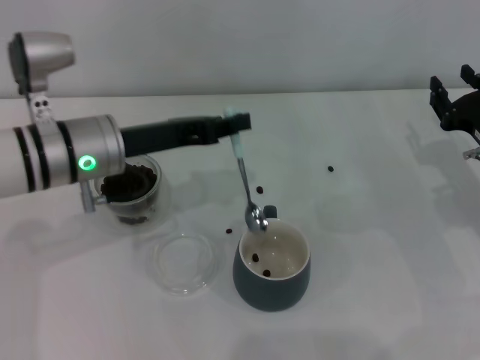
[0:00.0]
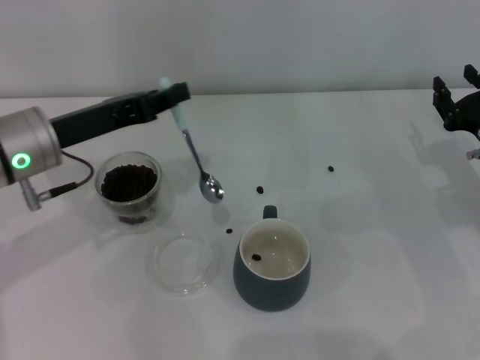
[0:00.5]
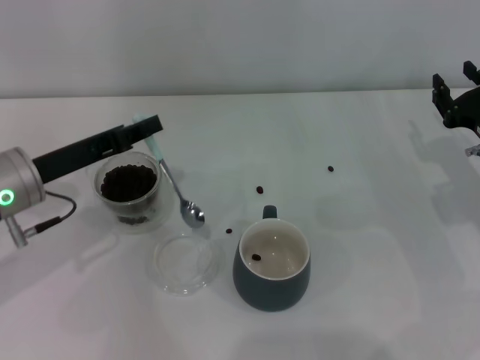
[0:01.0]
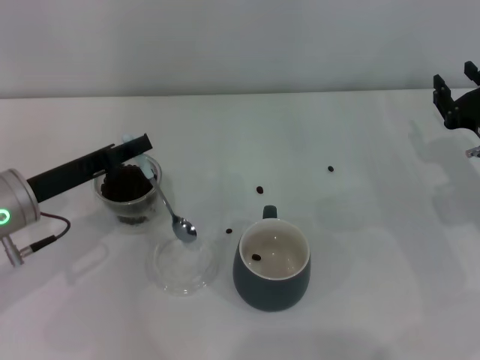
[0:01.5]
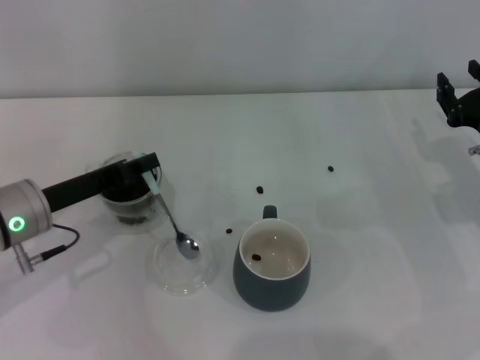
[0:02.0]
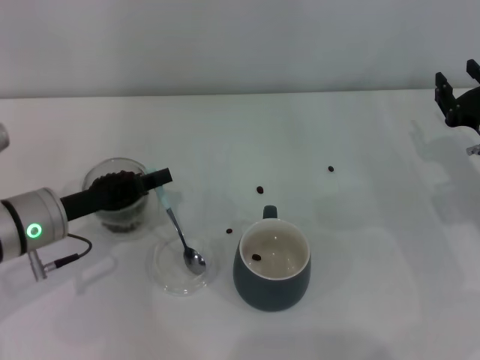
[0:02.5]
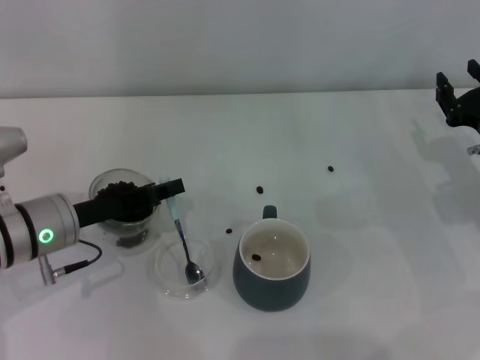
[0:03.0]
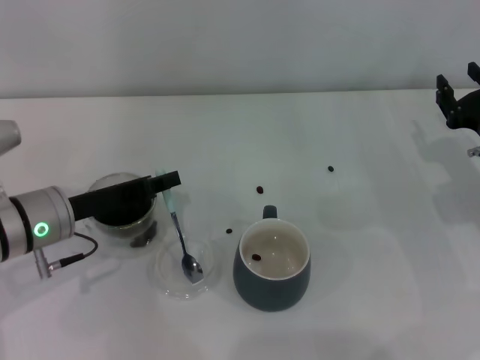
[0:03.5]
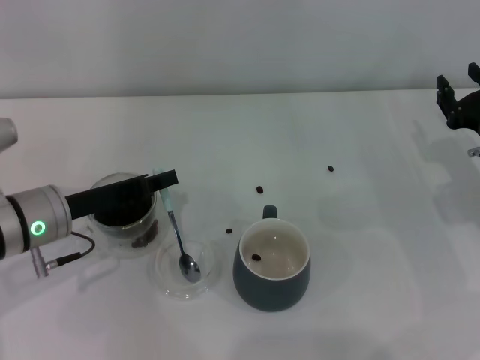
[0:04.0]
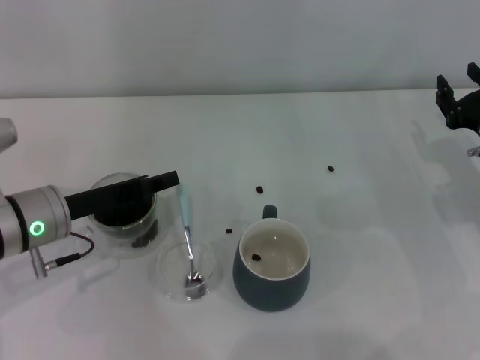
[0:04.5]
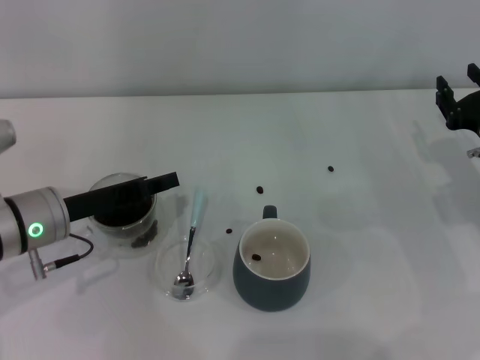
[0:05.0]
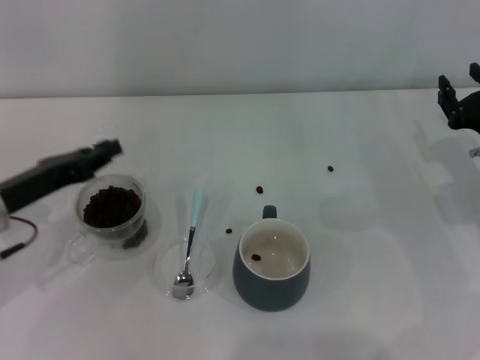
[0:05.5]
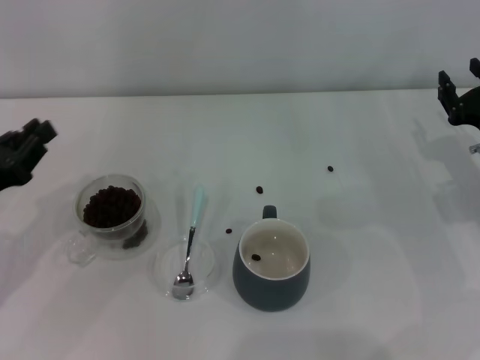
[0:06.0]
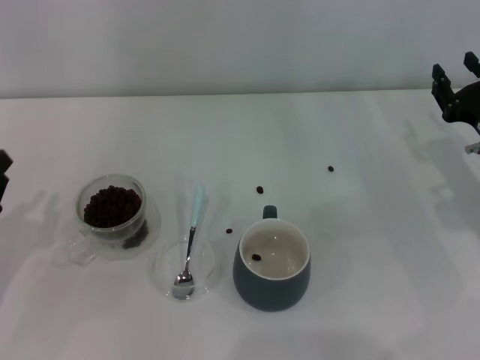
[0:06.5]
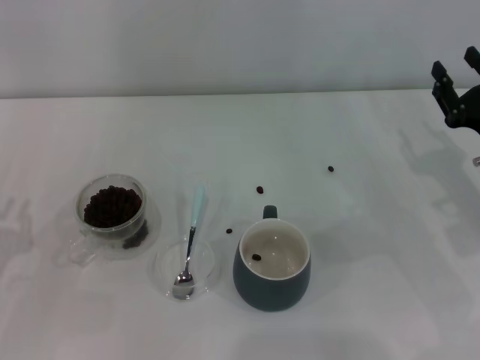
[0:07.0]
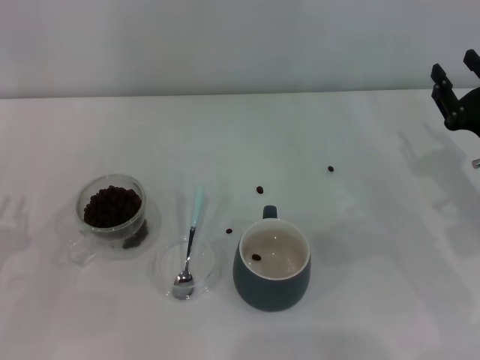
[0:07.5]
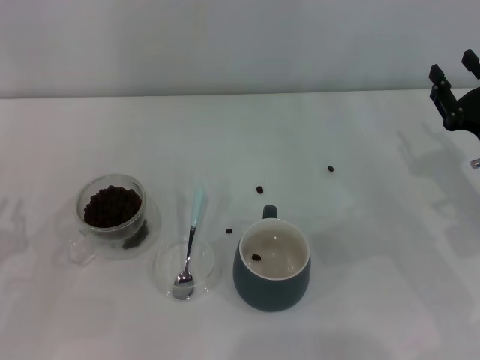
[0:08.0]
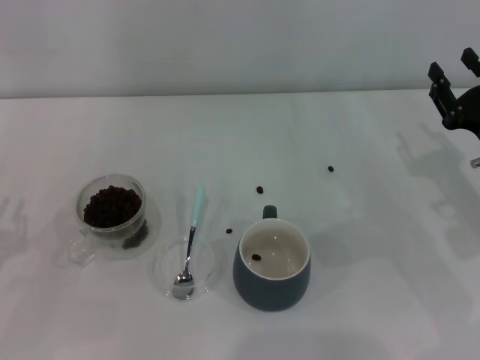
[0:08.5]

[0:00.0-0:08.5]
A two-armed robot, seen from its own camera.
Task of the whole recording: Use a blue spoon to take out the coffee beans from the glass and pour them into the gray cup.
0:00.0 to 0:02.0: The left gripper shifts about 10 cm to the left and downward.
0:02.0 to 0:04.0: There are only small adjustments of the grippers.
0:04.0 to 0:06.5: The left gripper travels to the left and backward by about 15 cm.
0:06.5 to 0:08.5: The grippers make only small movements.

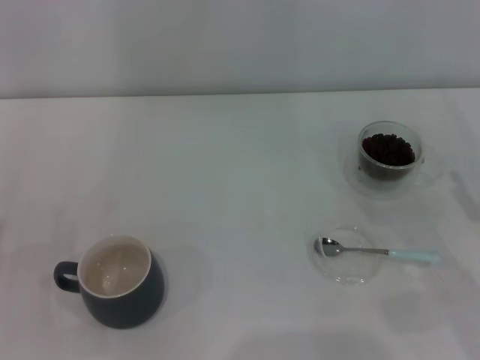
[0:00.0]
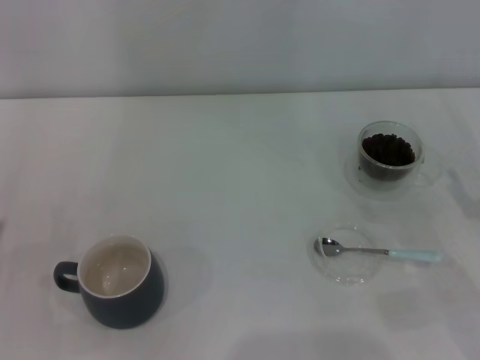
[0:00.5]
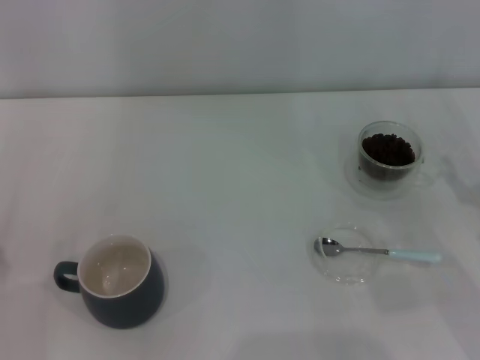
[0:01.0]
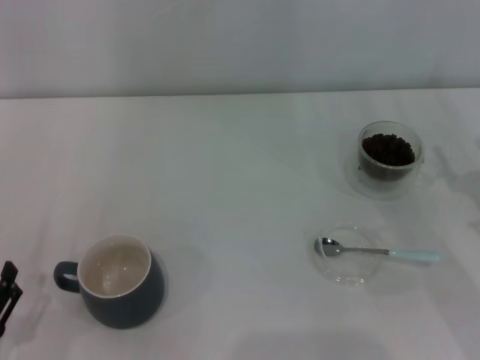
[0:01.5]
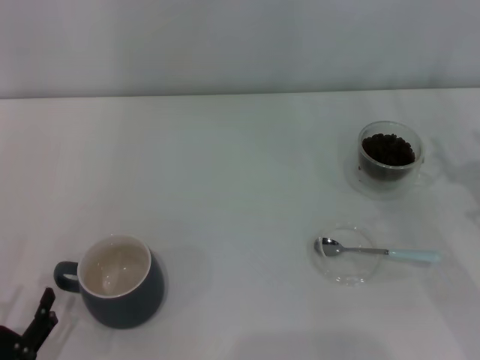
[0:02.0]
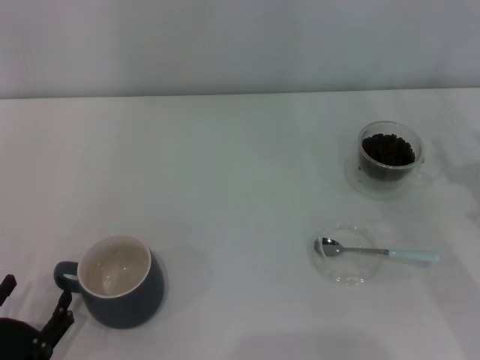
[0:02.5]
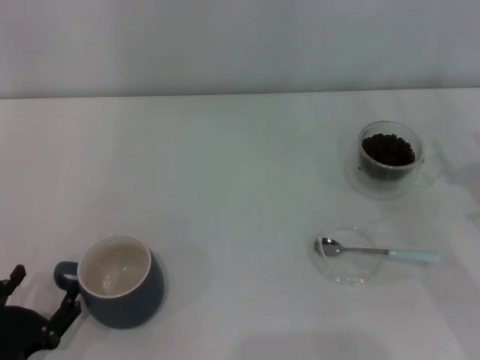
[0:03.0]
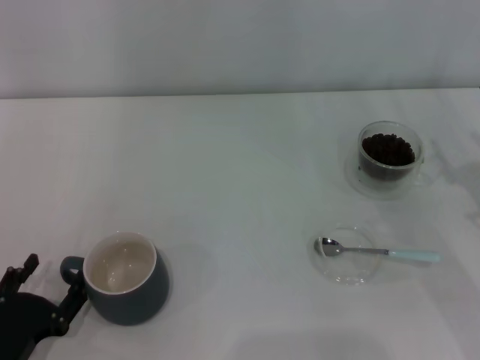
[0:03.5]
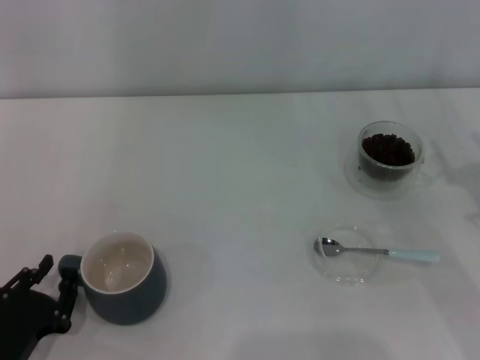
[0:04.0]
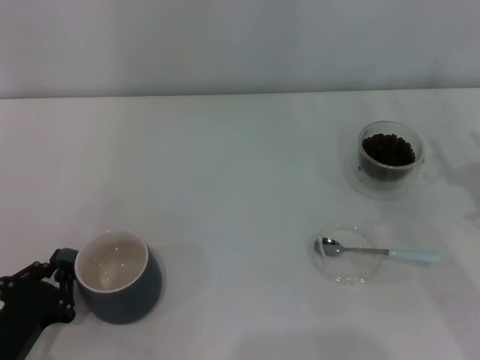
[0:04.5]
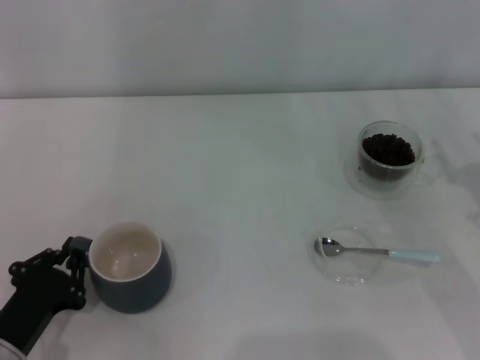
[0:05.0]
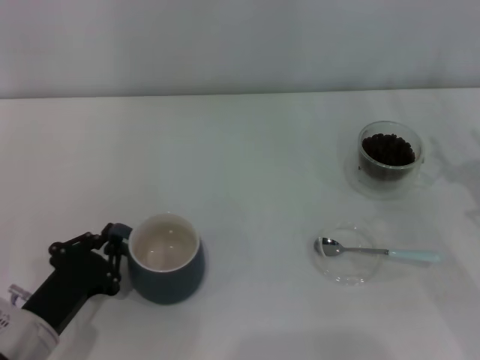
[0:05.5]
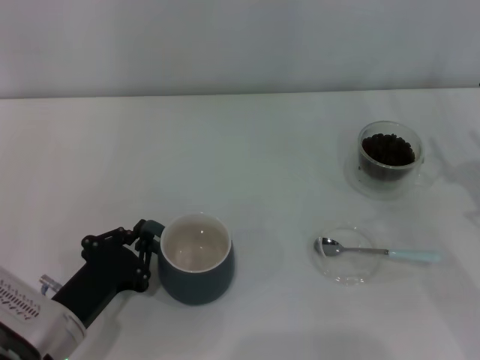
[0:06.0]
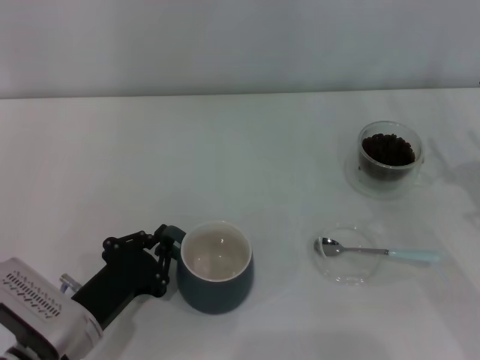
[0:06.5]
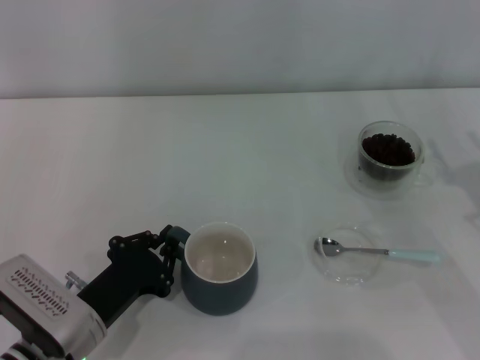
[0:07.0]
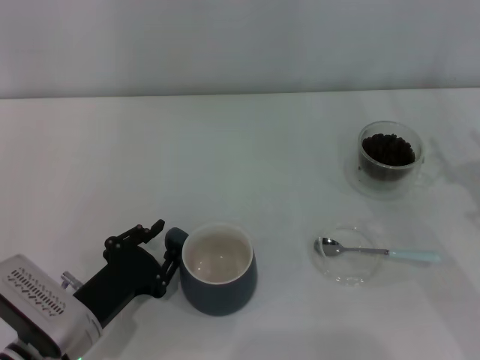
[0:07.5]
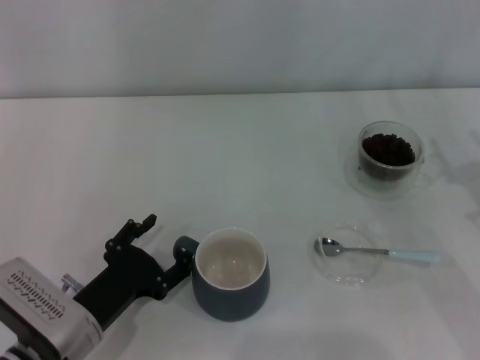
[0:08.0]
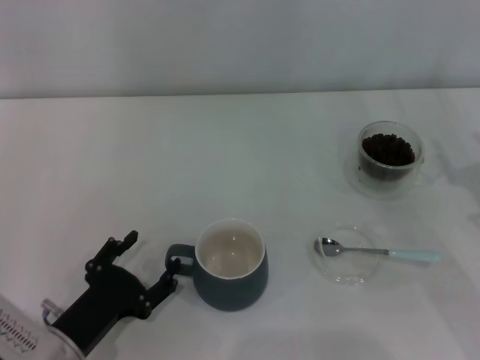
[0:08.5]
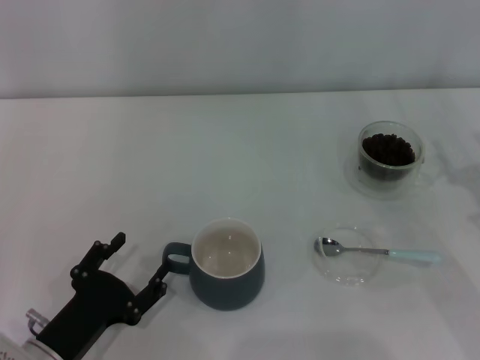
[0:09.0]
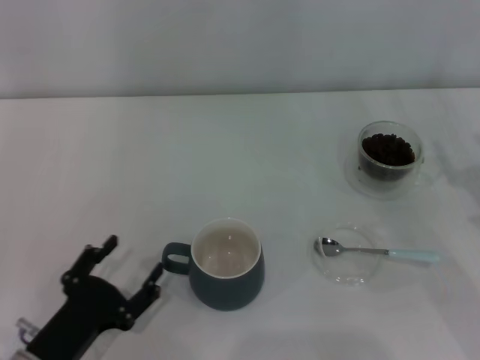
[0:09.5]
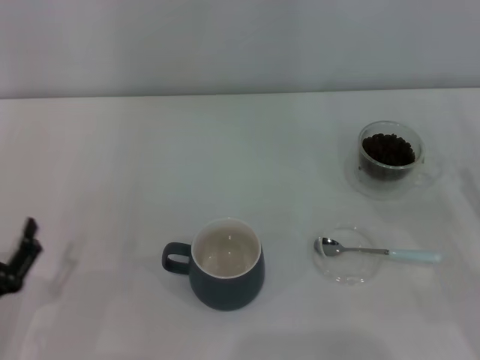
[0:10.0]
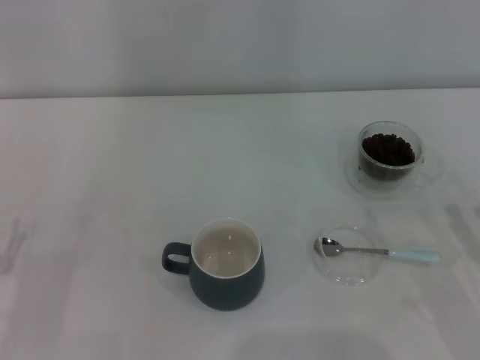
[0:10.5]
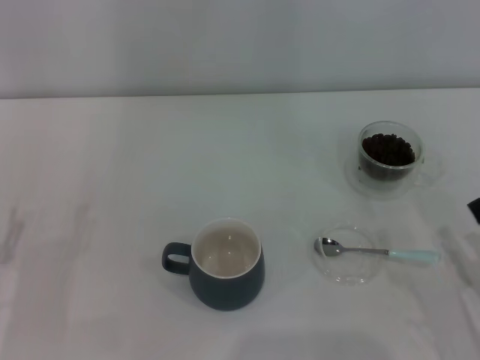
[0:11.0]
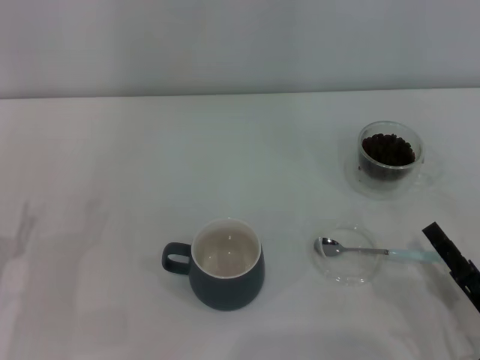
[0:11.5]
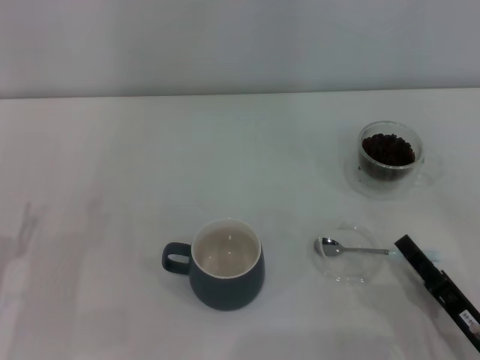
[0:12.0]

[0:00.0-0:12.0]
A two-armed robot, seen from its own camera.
Task of the whole recording: Use a blue spoon to take out the coffee beans from the glass and pour them into the gray cup.
Step, 0:00.0 to 0:09.5: Move the cup to the center of view with the left gripper.
0:00.0 to 0:02.0: The left gripper heads backward, covering approximately 10 cm.
0:02.0 to 0:04.0: The left gripper ends up some 5 cm from where it was.
0:04.0 to 0:06.0: The left gripper shifts roughly 10 cm to the right and forward, and closes up.
0:06.0 to 0:08.0: The left gripper opens.
0:08.0 to 0:10.0: The left gripper goes roughly 10 cm to the left and backward, while the right gripper shifts roughly 5 cm backward.
0:10.0 to 0:12.0: The right gripper goes about 15 cm to the left, backward and downward. The left gripper moves forward, some 5 cm.

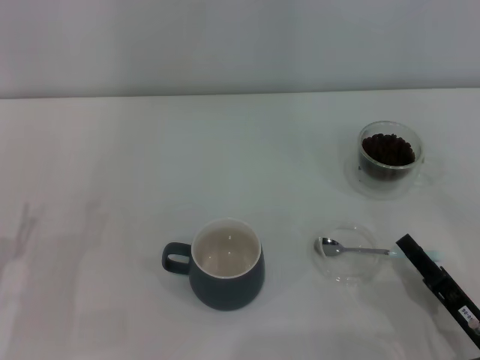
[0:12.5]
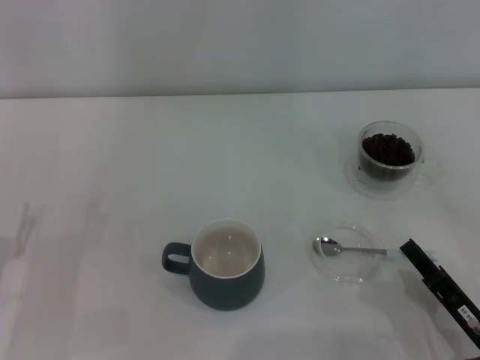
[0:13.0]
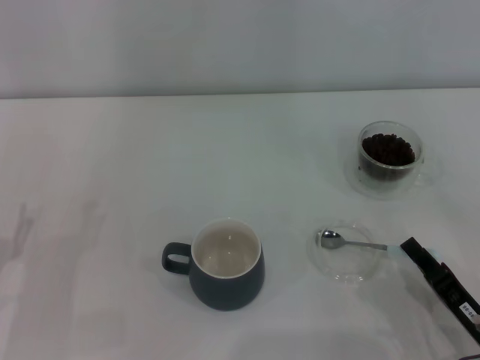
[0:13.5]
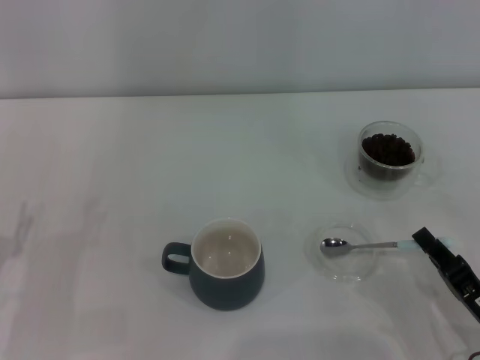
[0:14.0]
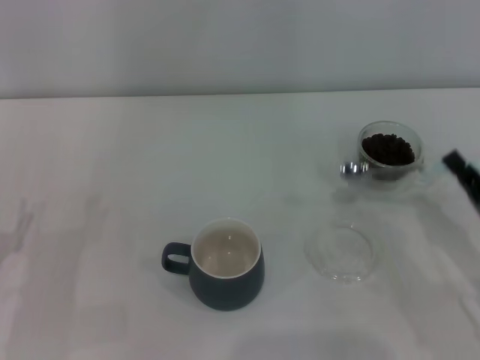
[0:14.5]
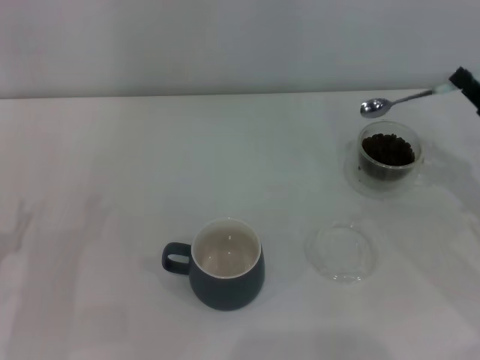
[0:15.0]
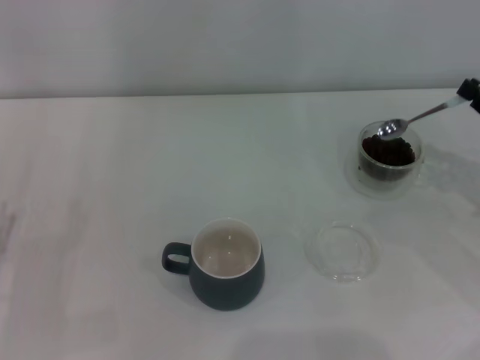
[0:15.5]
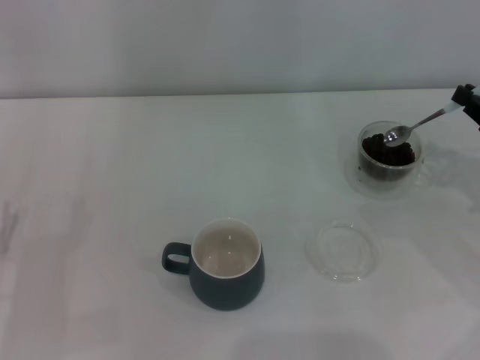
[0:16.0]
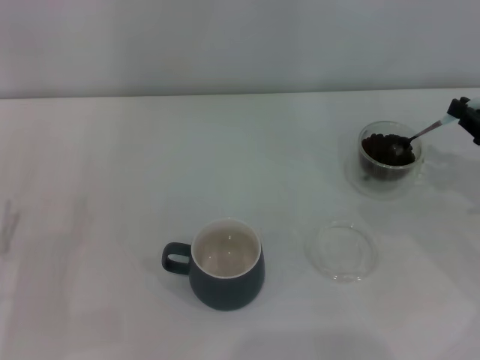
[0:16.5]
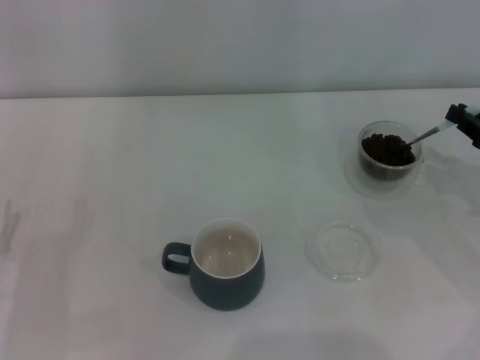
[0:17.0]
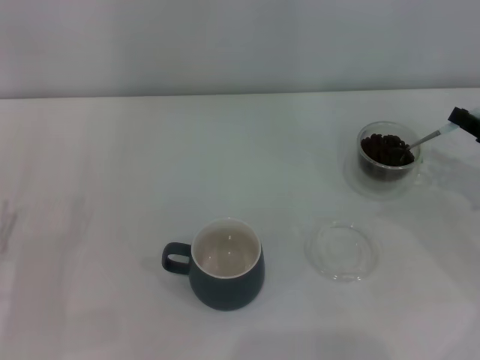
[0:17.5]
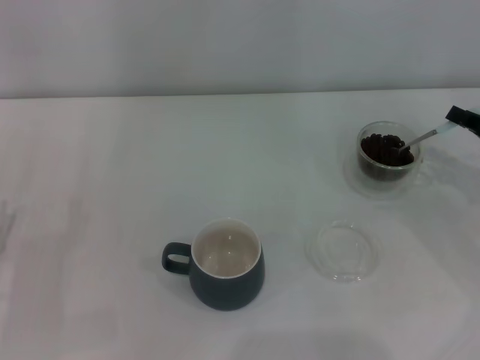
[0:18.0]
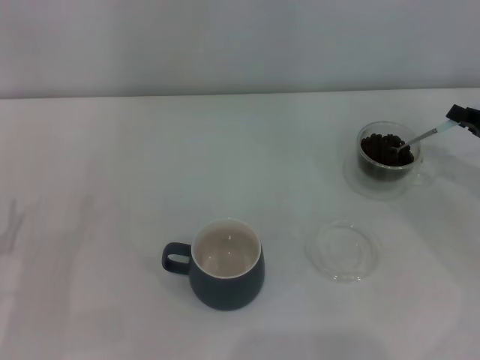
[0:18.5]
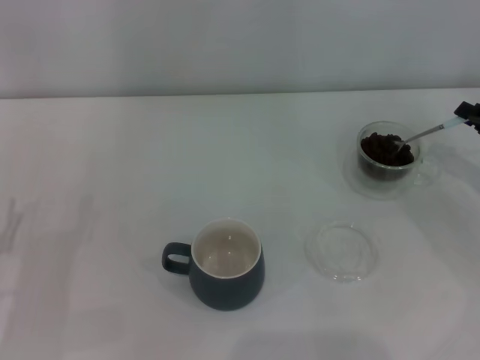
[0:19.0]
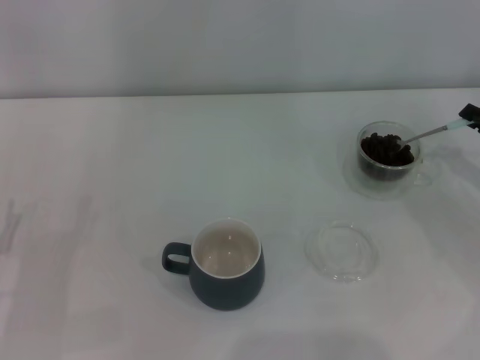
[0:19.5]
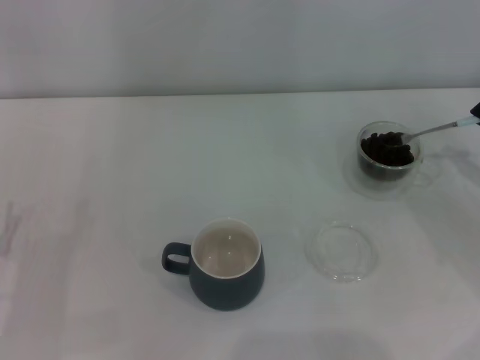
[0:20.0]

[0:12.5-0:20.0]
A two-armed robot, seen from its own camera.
Task of the whole recording: Use a blue spoon to take out the coffee beans from the glass and pour them into the gray cup.
0:12.5 to 0:14.5: The right gripper moves forward, about 5 cm, and closes.
0:14.5 to 0:16.5: The right gripper goes some 15 cm forward, to the right and upward.
